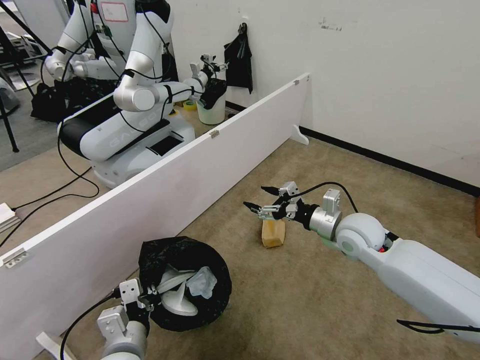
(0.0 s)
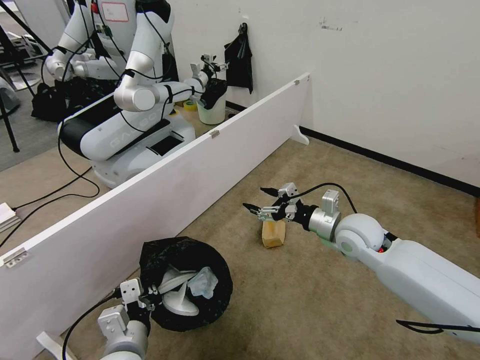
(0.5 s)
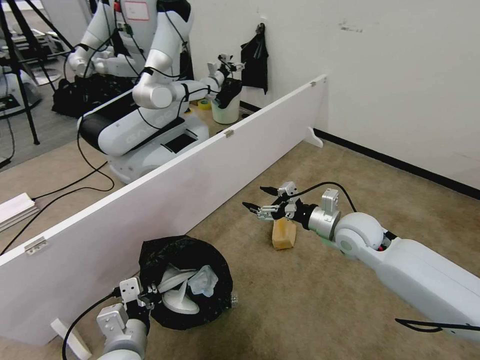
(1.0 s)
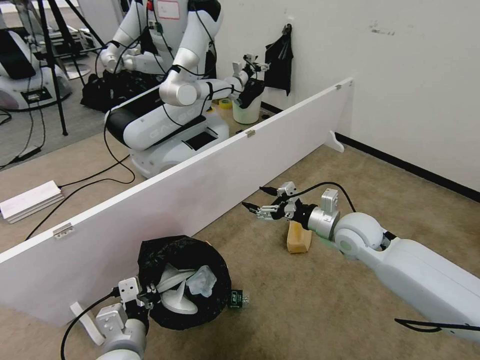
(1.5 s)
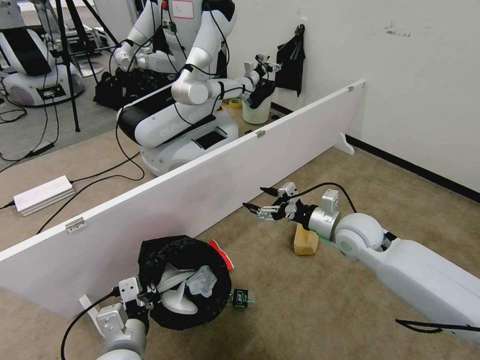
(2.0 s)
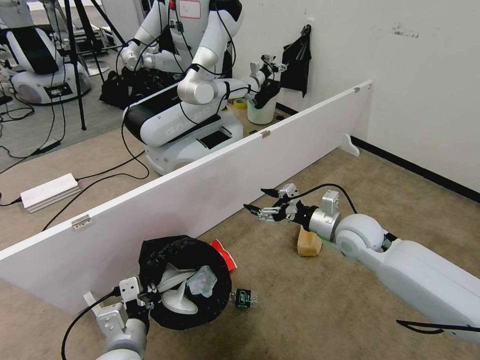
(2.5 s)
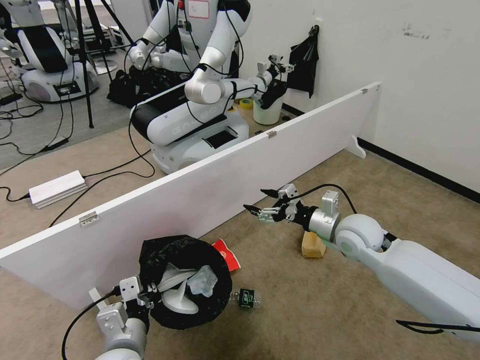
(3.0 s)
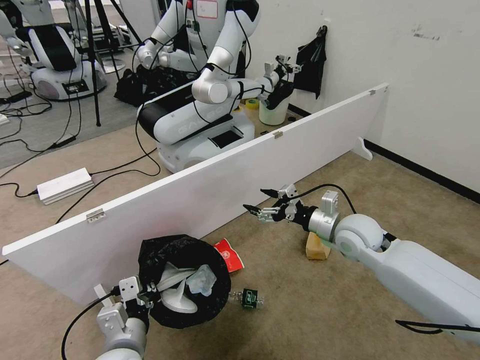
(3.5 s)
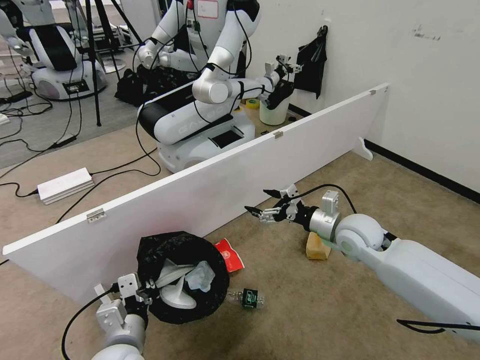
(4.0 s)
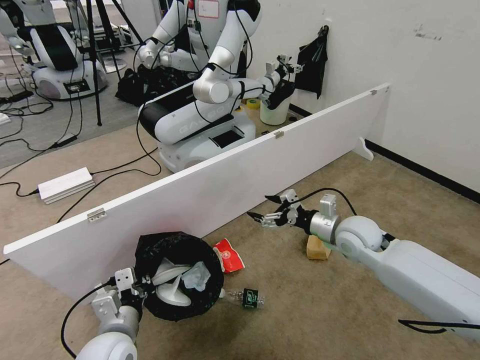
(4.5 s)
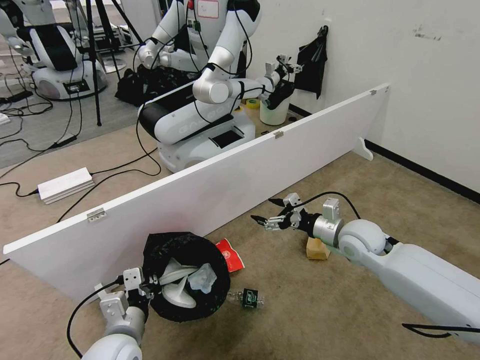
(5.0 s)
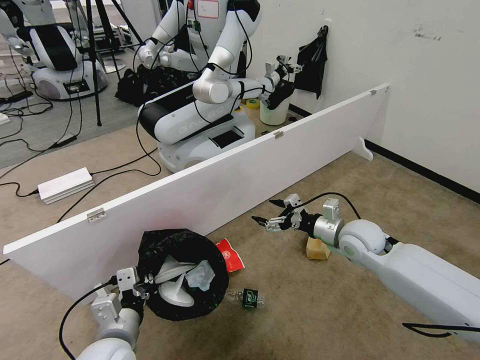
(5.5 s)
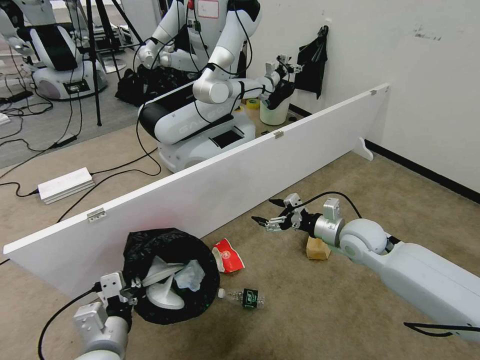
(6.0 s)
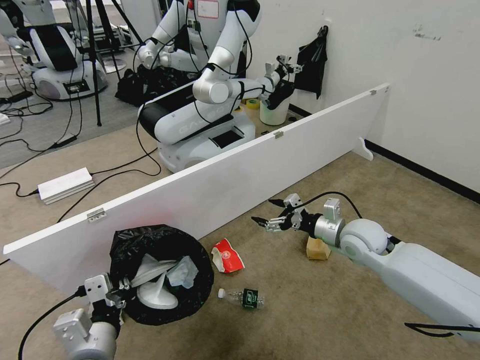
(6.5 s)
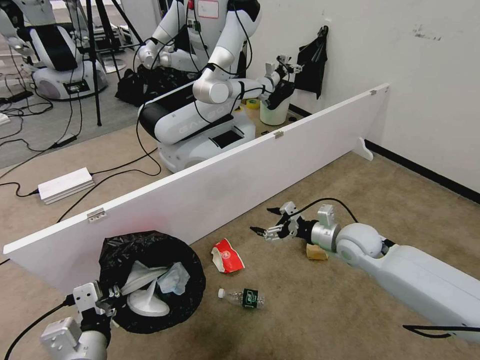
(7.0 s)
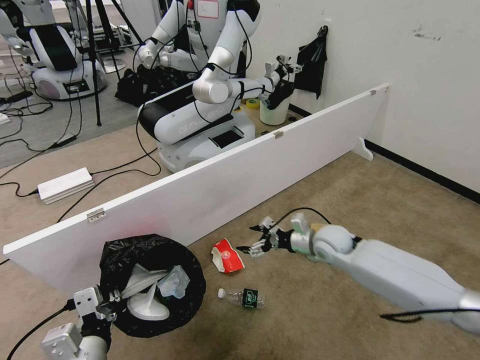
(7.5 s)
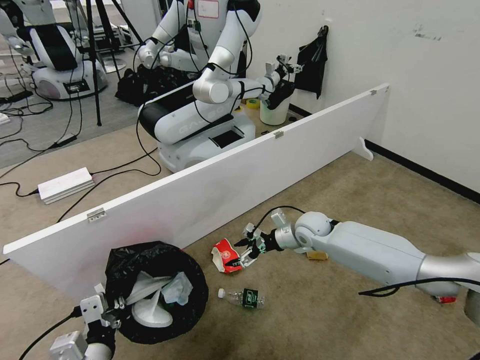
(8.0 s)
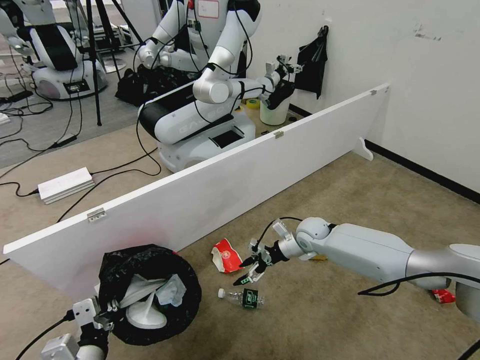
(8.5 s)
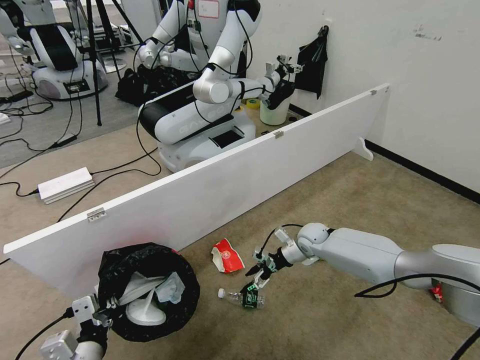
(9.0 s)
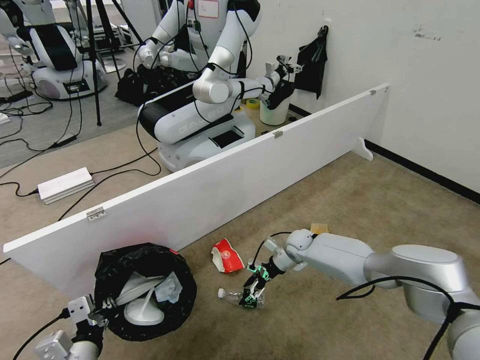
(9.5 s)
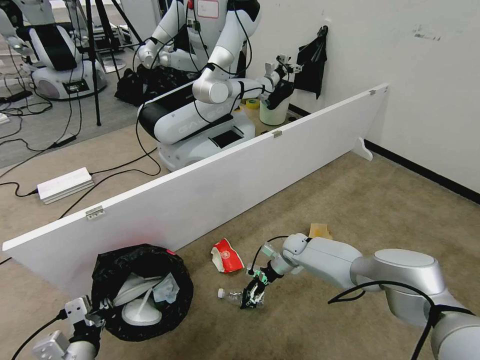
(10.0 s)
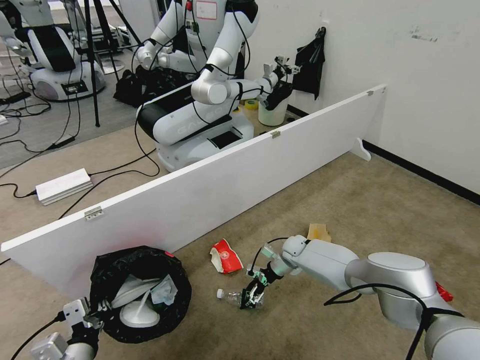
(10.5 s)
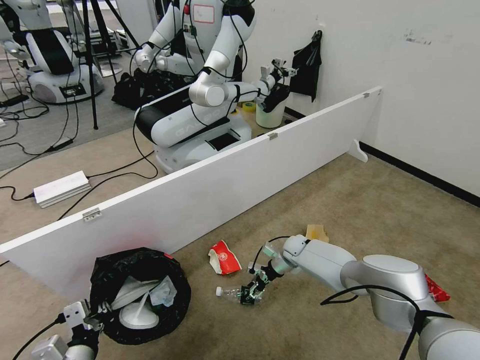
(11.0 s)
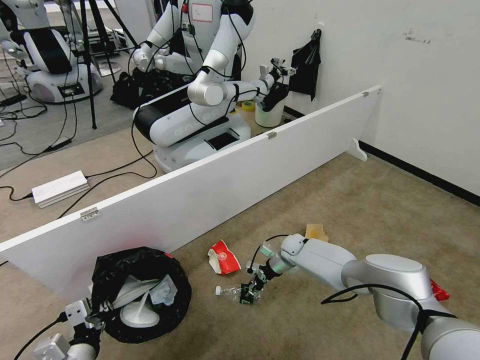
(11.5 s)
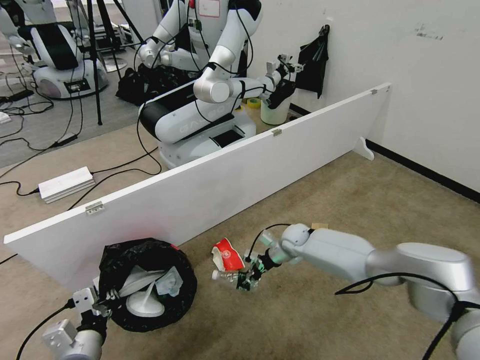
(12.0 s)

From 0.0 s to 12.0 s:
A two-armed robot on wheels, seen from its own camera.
Task of the whole recording: Pick up the trash bin, then pick up the garbage from the floor and place it into the trash bin.
From 4.0 s to 6.0 s: The grippers move only a little.
From 6.0 s to 8.0 s: The right gripper travels forward, to the left and downward by about 15 cm. Meanwhile the left gripper changes place by about 5 cm.
From 8.0 s to 10.0 s: The right gripper shifts about 15 cm downward; the left gripper is displaced to the left by about 5 cm.
From 10.0 s to 12.0 s: The right gripper is displaced upward by about 5 cm, and closes up.

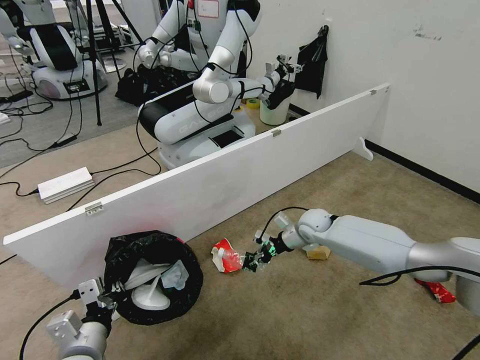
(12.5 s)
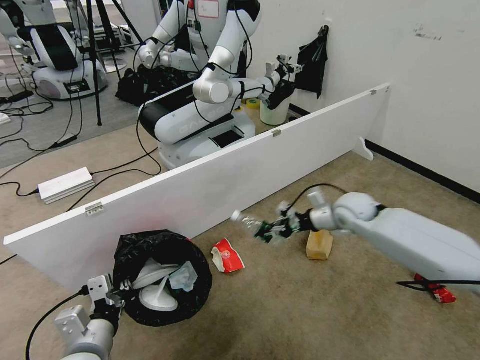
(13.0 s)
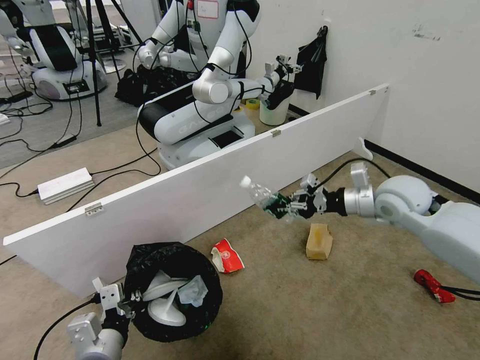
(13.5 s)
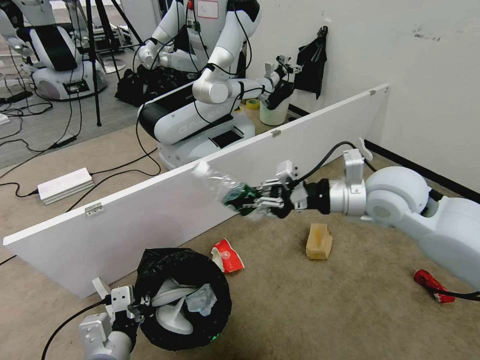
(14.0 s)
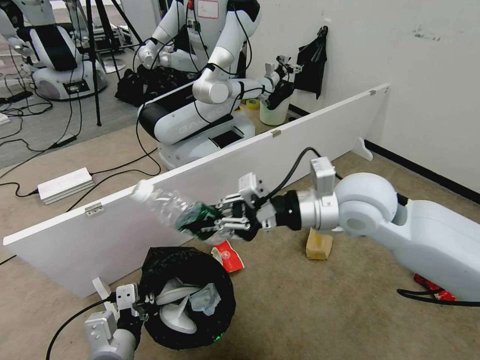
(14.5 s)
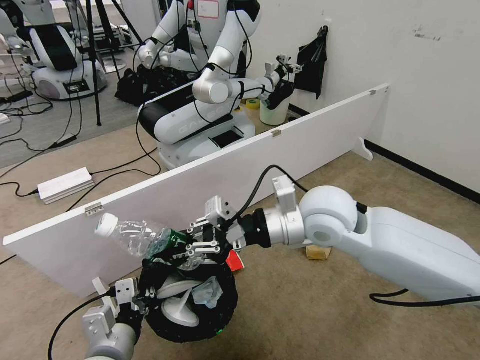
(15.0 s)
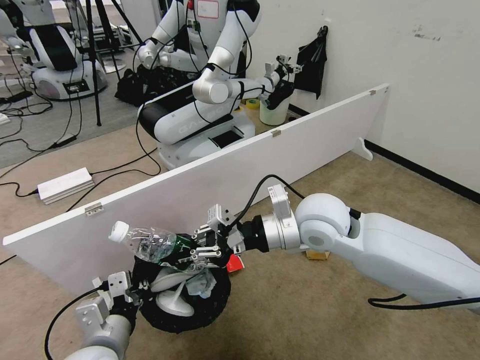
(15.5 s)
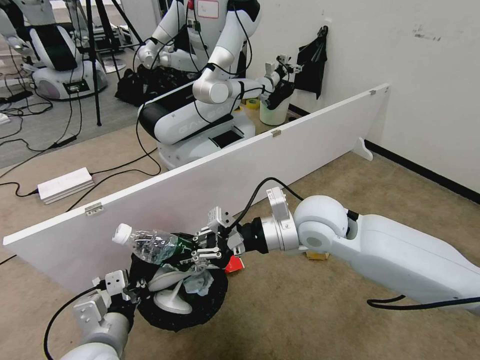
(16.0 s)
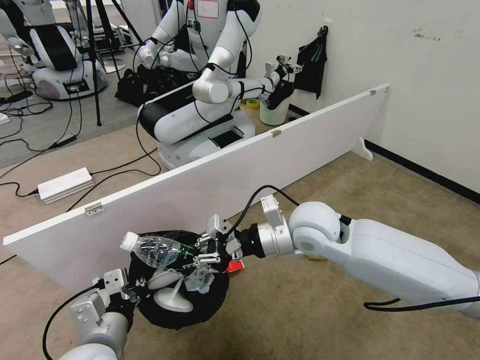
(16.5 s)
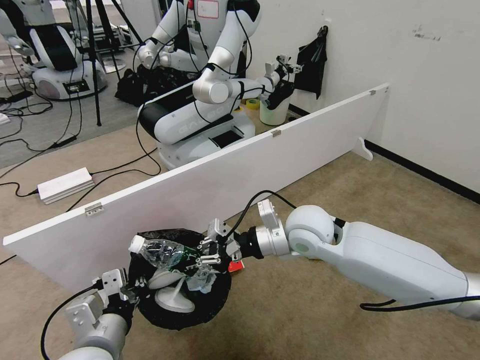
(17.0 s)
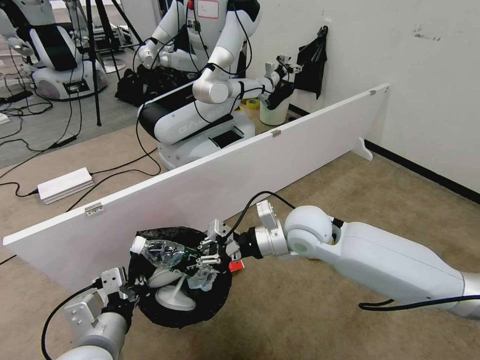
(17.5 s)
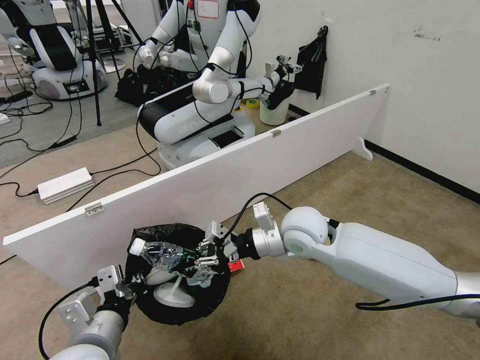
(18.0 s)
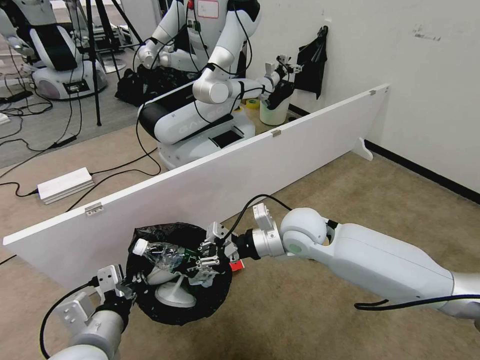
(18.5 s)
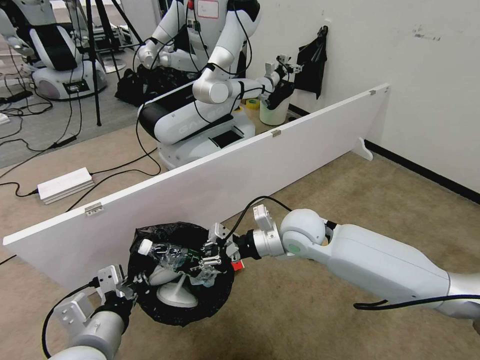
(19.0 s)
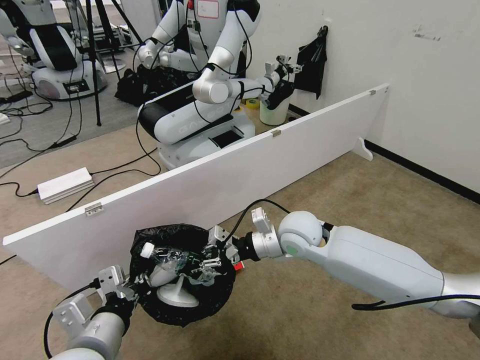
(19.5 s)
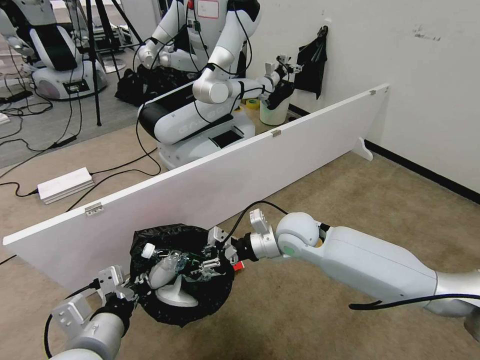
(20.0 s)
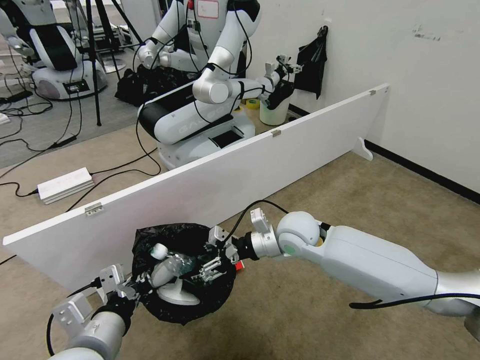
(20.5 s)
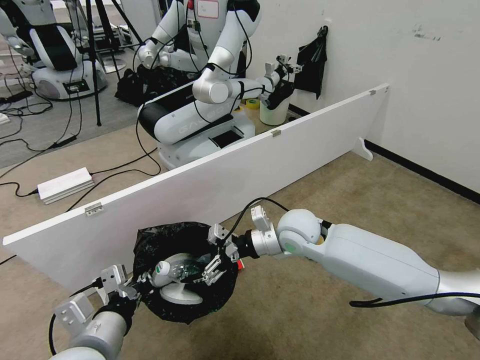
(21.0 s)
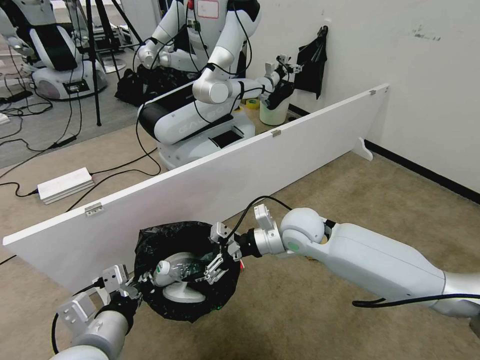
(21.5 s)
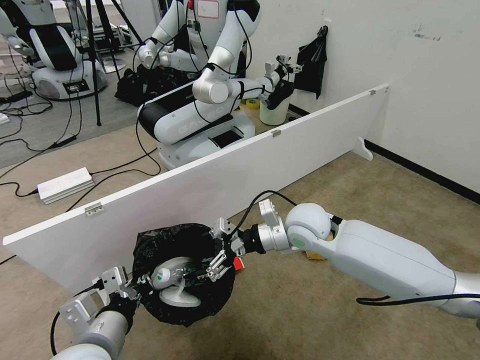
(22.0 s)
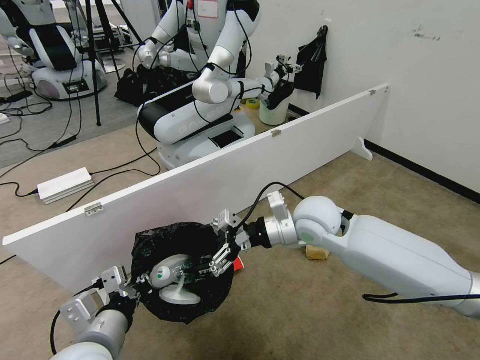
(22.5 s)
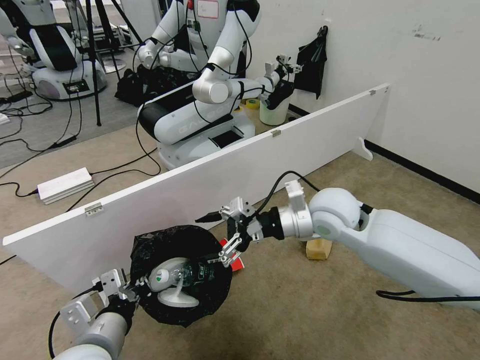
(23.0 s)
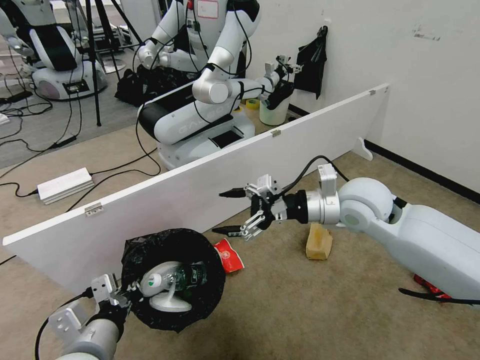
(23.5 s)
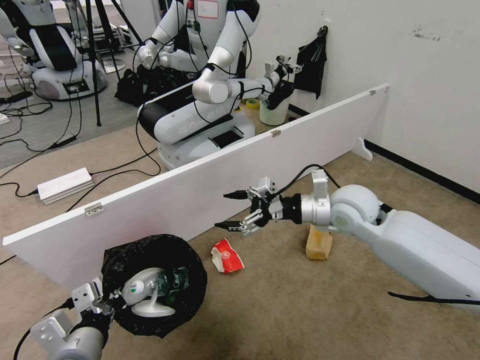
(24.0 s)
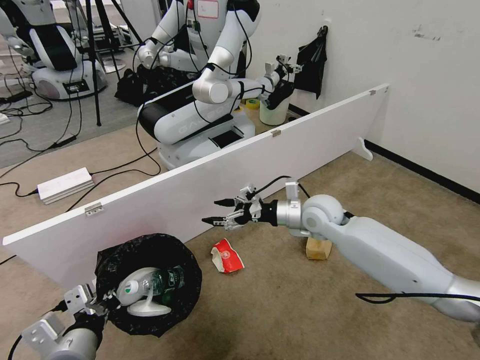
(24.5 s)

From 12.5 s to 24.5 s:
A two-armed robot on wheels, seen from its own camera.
Task of the whole recording: Pick up the trash bin, then pick up the garbage from the floor and place it into the trash bin.
From 12.5 s to 14.5 s: The left gripper is displaced to the right by roughly 5 cm; the right gripper heads upward and backward, covering roughly 30 cm.
From 14.5 s to 16.5 s: The right gripper goes about 10 cm downward and to the left.
From 16.5 s to 18.5 s: The grippers make only small movements.
From 18.5 s to 20.5 s: The right gripper opens its fingers.
From 20.5 s to 22.5 s: The right gripper is displaced upward by approximately 5 cm.
From 22.5 s to 24.5 s: The right gripper moves forward, approximately 5 cm.

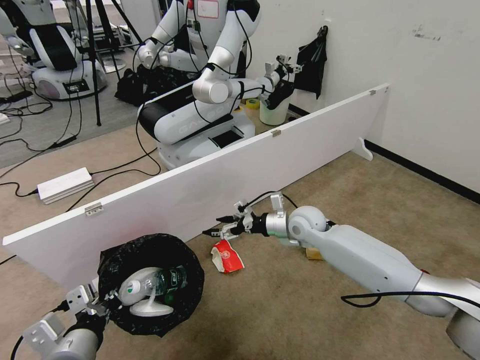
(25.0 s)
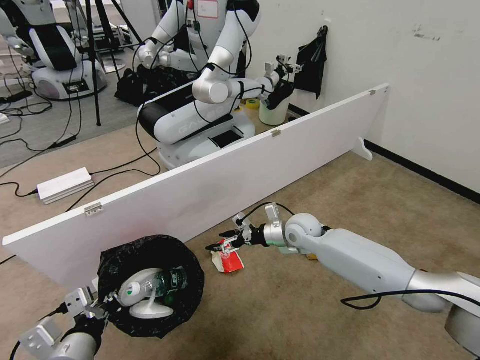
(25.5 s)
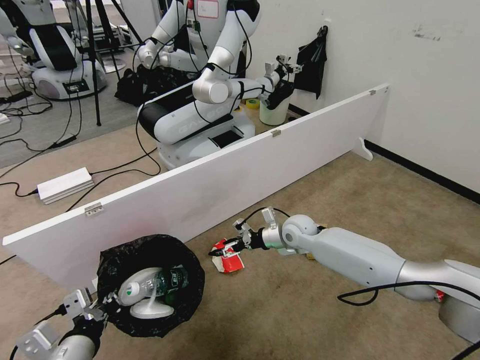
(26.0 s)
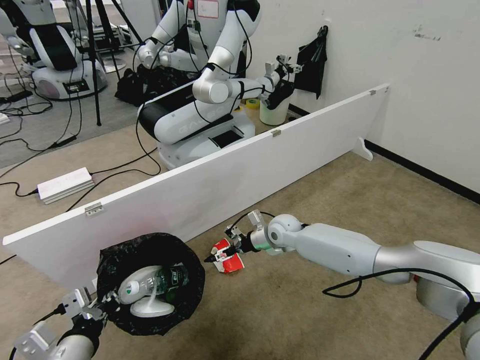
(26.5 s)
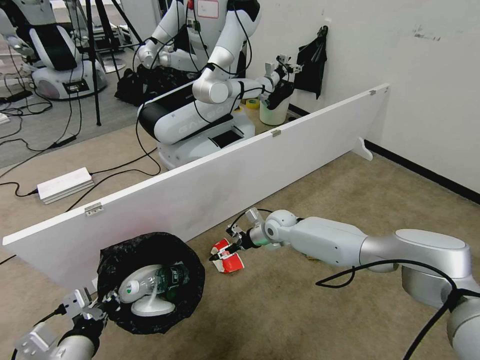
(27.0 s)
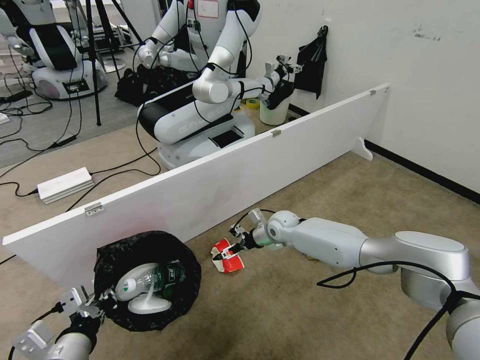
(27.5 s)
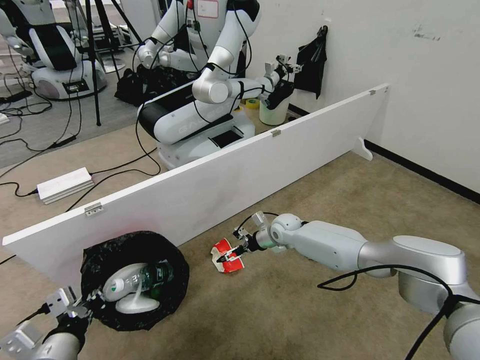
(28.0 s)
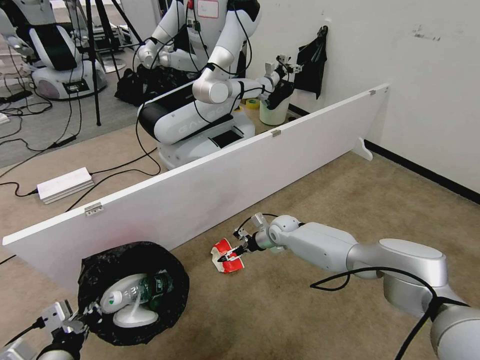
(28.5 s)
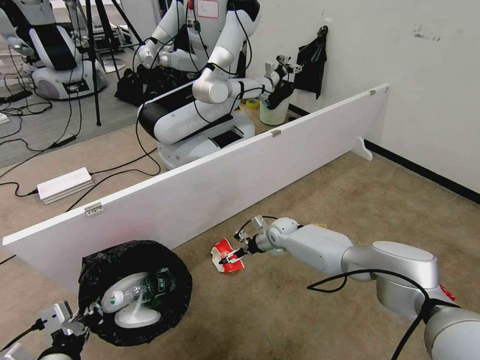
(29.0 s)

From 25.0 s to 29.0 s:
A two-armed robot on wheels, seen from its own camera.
Task of the whole recording: Pick up the trash bin, then pick up the garbage from the floor and place it into the trash bin.
From 25.0 s to 27.0 s: The right gripper moves downward and forward, some 10 cm.
From 27.0 s to 29.0 s: The right gripper moves downward, some 5 cm.
